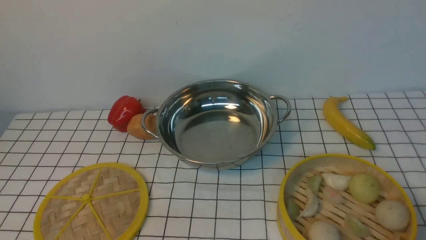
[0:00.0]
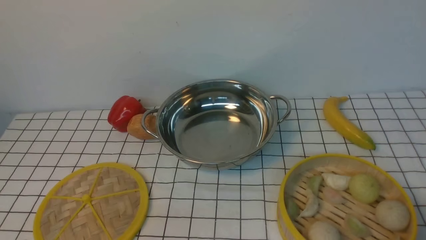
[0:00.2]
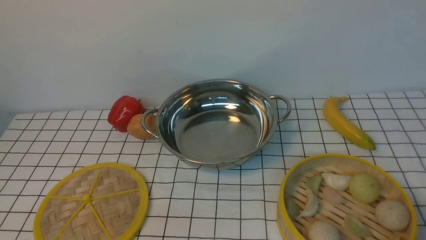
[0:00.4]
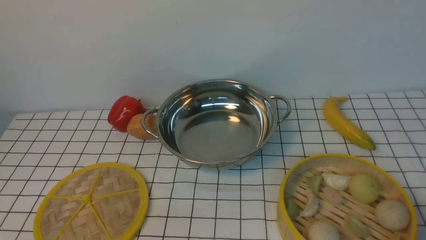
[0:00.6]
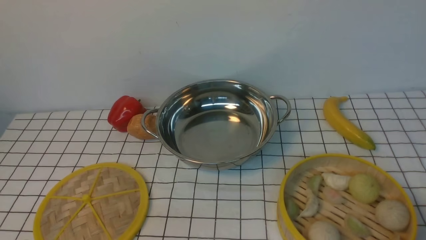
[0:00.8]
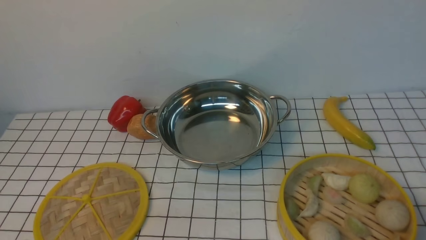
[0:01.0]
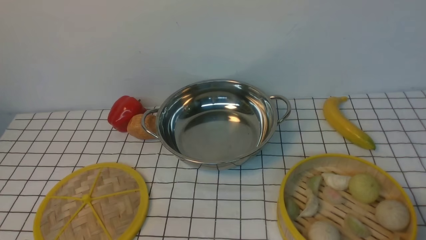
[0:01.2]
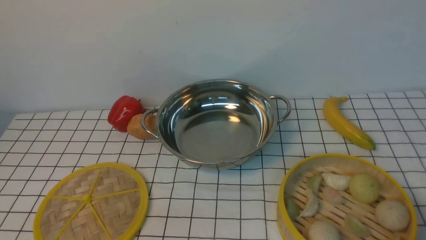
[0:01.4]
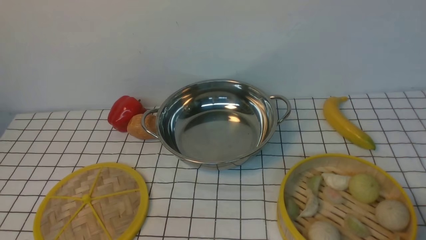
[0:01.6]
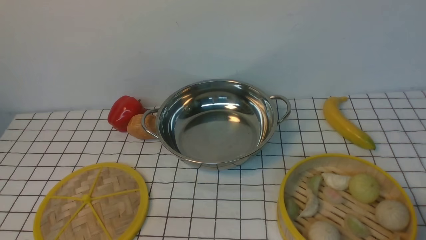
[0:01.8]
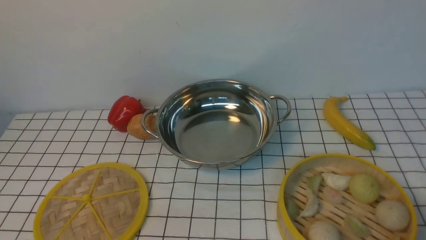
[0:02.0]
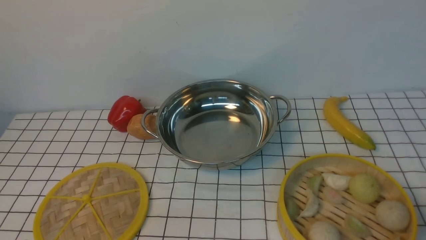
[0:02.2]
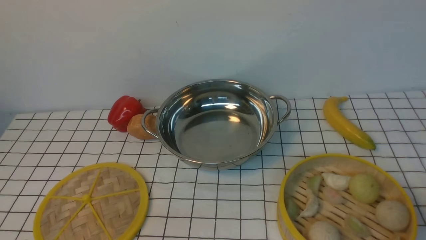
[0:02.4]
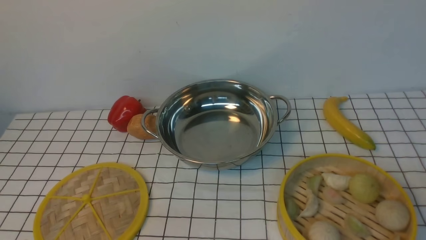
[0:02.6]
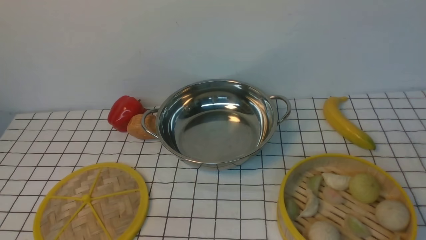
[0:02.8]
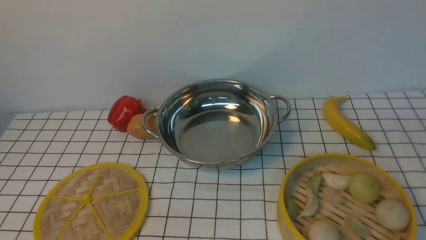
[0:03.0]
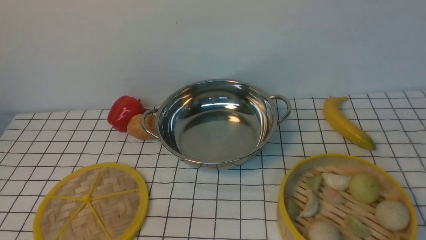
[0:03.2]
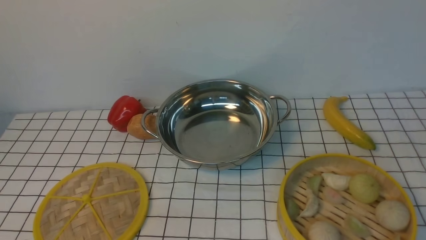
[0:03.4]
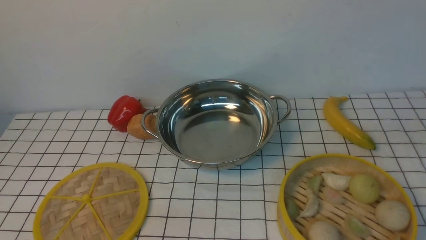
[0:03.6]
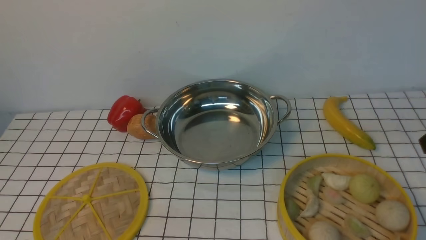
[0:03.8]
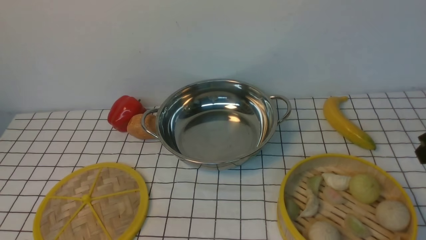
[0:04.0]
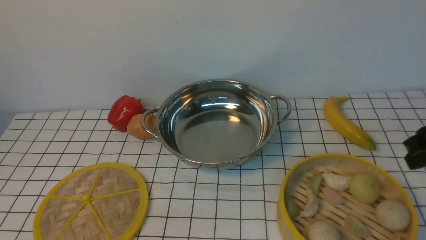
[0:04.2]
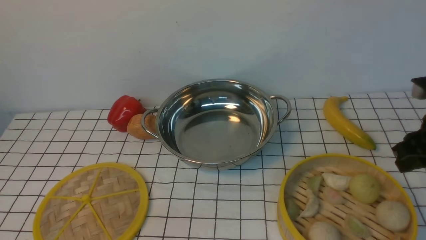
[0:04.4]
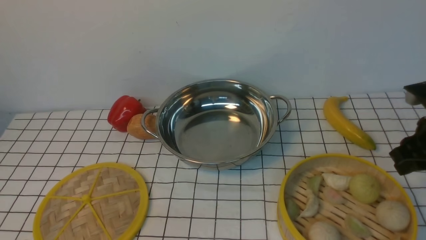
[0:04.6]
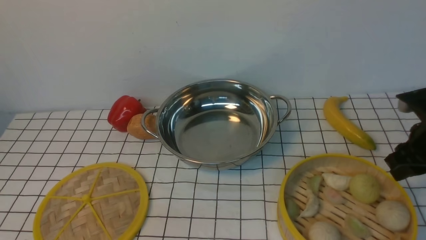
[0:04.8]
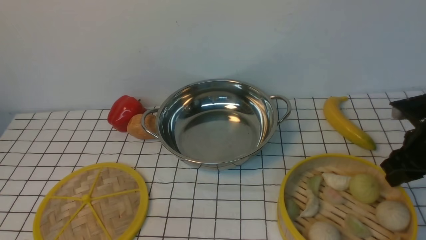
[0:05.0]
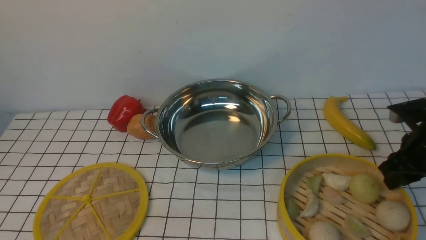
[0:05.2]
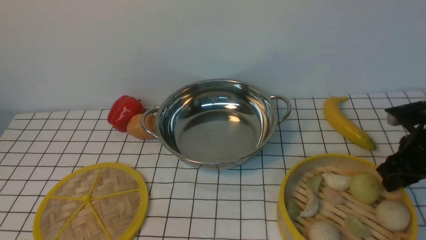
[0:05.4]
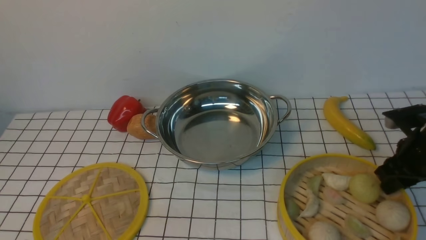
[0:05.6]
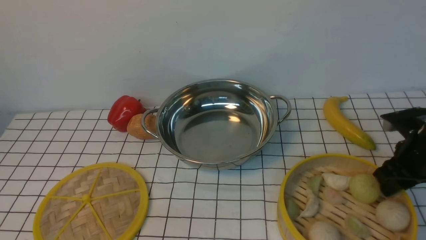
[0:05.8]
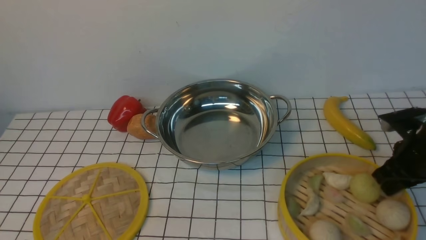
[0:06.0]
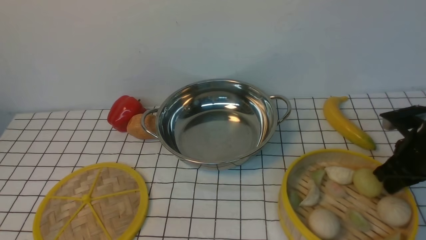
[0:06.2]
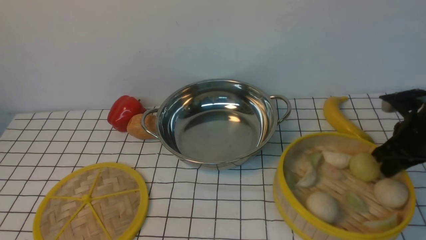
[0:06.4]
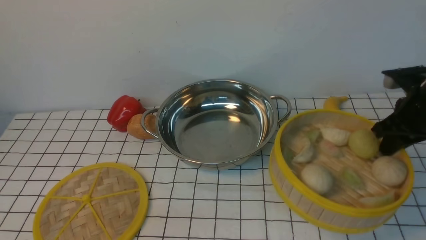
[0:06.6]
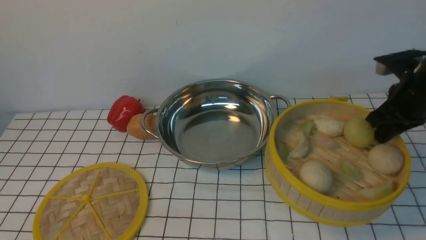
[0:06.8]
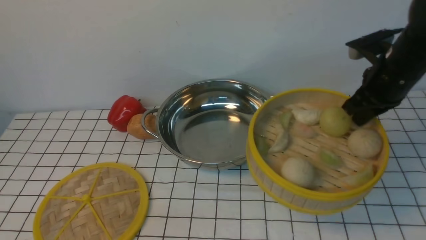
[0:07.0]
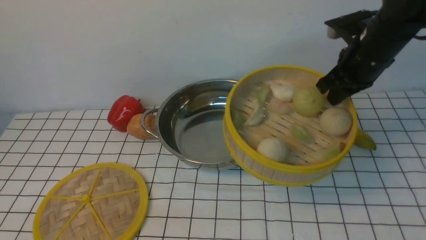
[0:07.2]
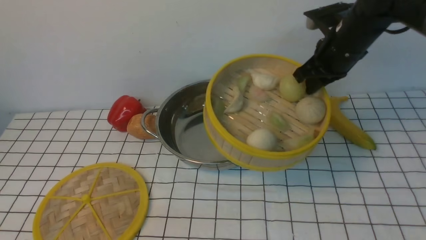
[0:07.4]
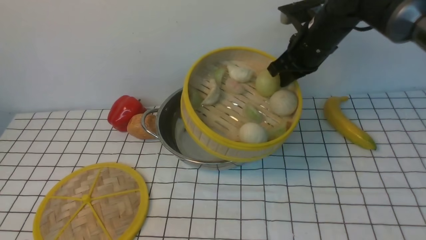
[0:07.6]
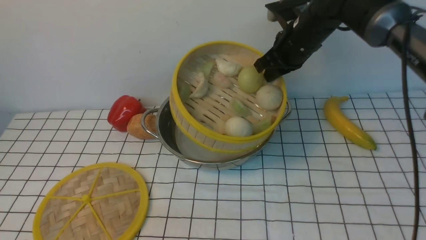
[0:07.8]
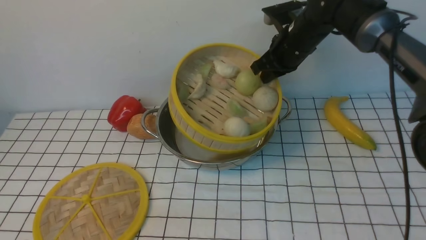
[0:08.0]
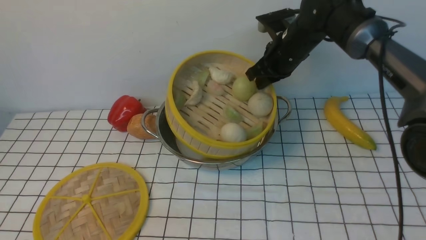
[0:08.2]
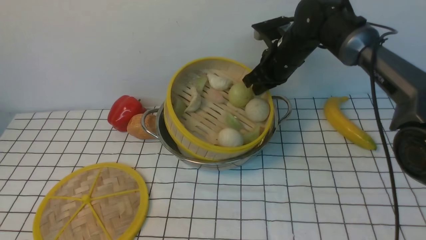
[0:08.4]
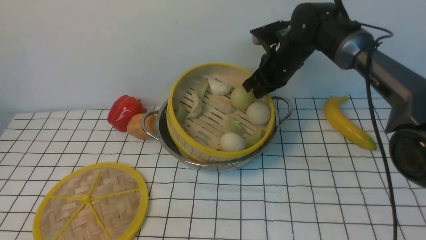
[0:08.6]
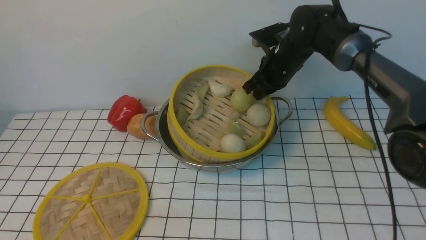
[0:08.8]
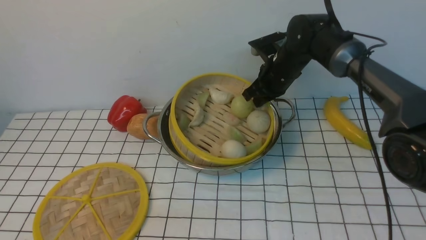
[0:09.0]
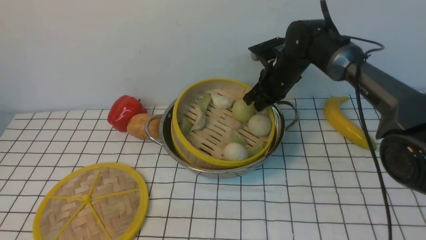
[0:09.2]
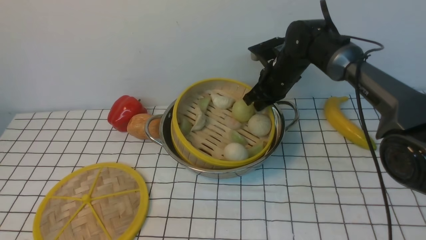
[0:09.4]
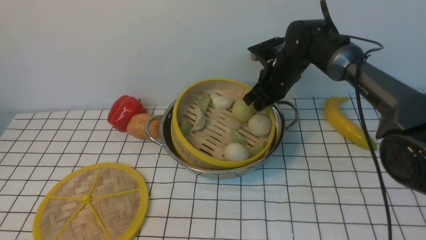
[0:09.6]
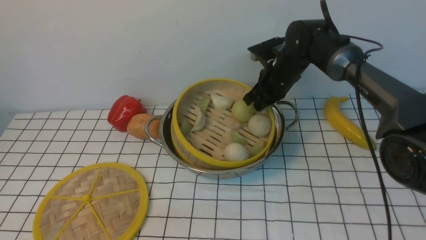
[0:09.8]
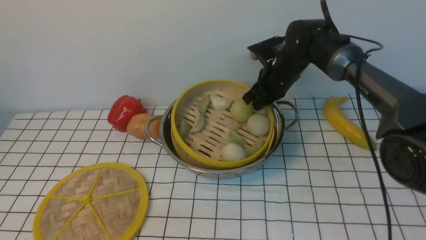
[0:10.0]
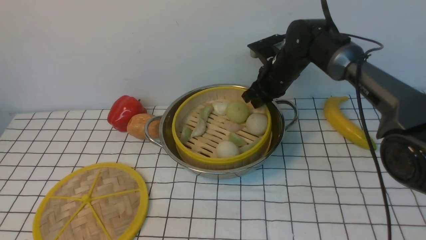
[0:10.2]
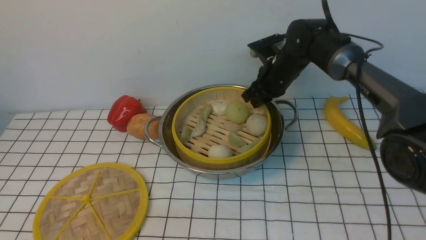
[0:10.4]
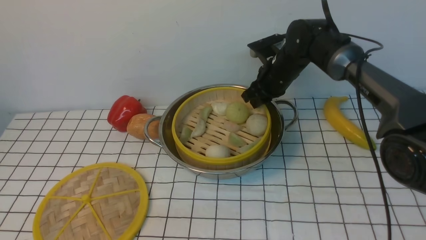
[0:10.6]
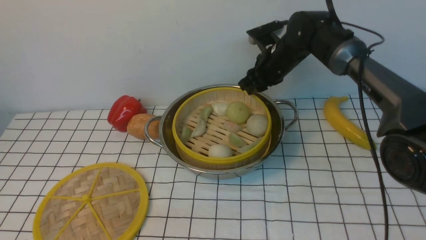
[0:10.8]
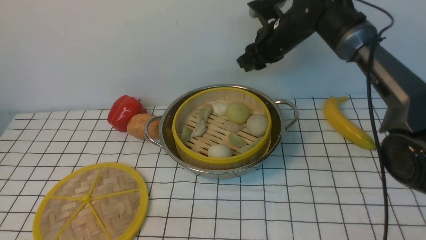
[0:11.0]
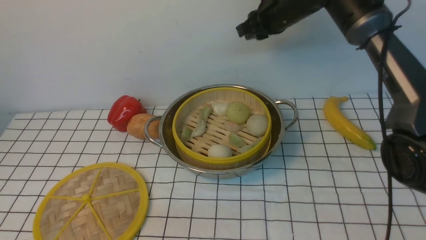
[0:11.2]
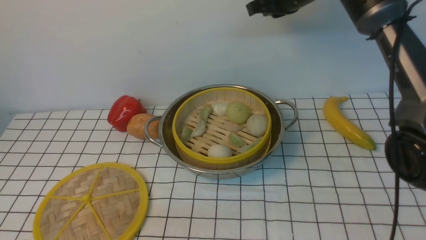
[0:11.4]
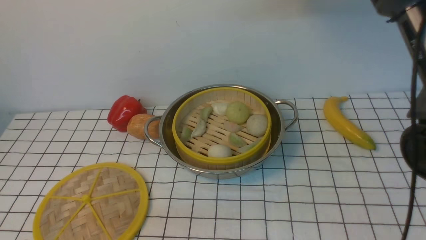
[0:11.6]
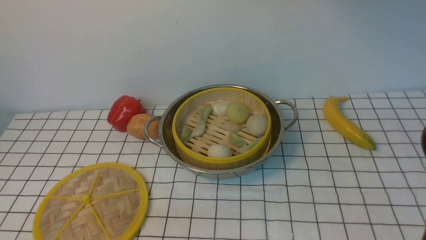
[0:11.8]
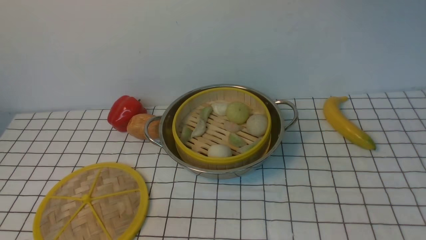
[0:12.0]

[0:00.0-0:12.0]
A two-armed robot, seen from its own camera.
Task of the whole recording: place the steamer in the pot on the white tablecloth, and put the lid on the steamer.
Step, 0:00.0 to 0:06.2: use the right arm to lift the steamer closest to it.
Step, 0:06.4 to 0:10.6: use the right arm to put the steamer into the iron steamer pot in the middle.
0:03.0 to 0:04.4: The right gripper goes about 20 cm forward.
0:04.4 to 0:06.0: The right gripper shifts about 10 cm downward, and closes.
0:06.0 to 0:07.6: The right gripper goes about 20 cm to the left, forward and upward, and closes up.
0:07.6 to 0:09.0: The right gripper moves downward and to the left, about 10 cm.
0:09.0 to 0:10.4: The right gripper opens up.
0:10.4 to 0:12.0: The right gripper goes some 25 cm upward, and closes its fingers.

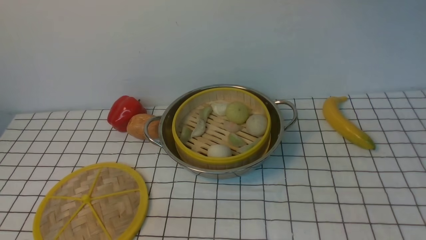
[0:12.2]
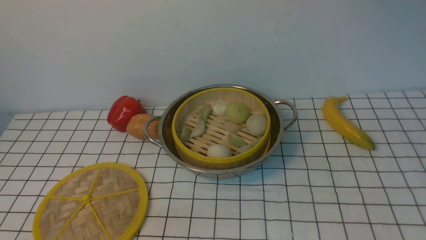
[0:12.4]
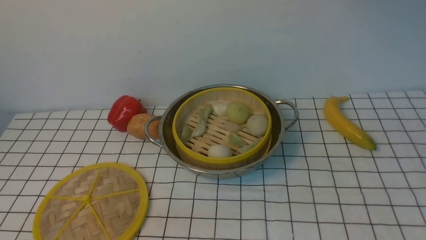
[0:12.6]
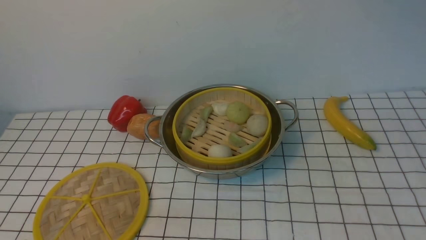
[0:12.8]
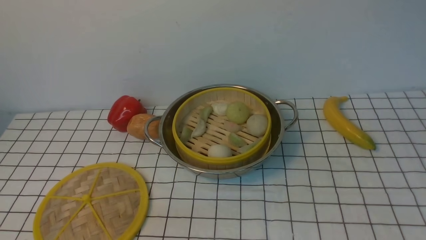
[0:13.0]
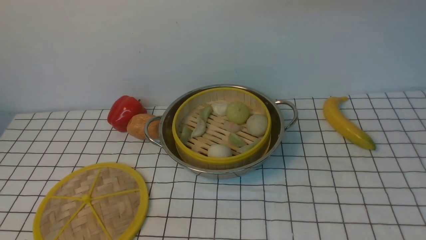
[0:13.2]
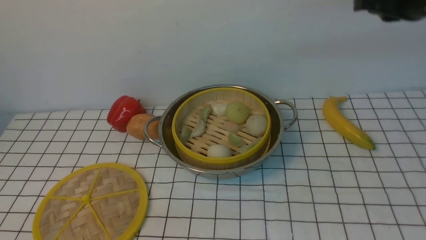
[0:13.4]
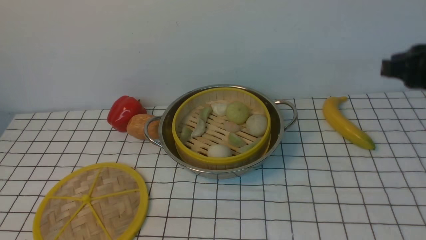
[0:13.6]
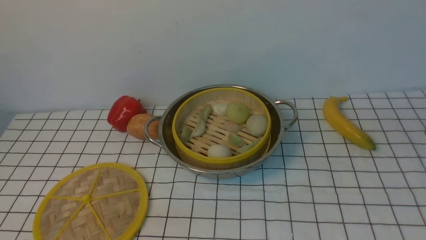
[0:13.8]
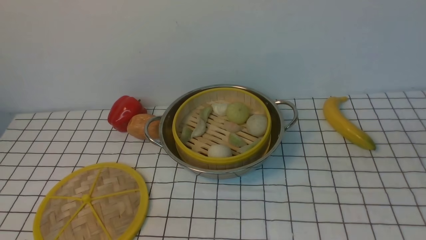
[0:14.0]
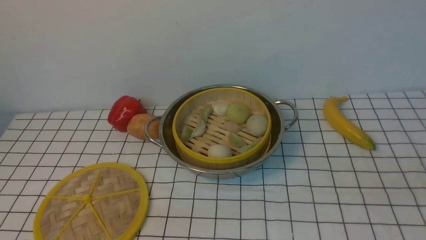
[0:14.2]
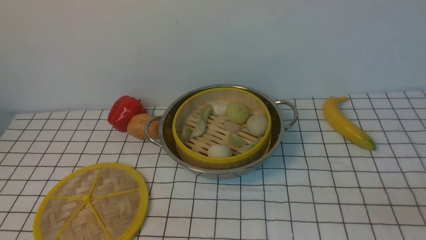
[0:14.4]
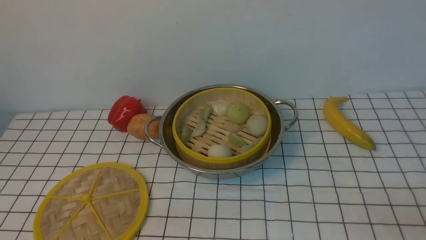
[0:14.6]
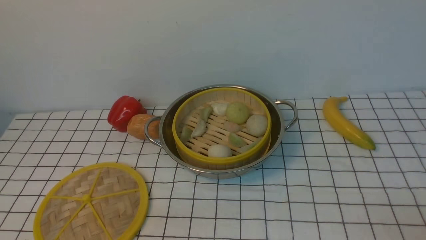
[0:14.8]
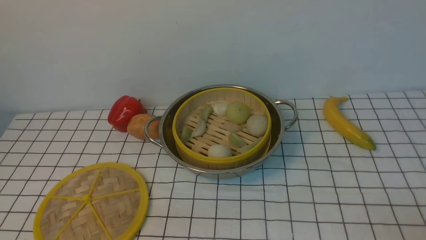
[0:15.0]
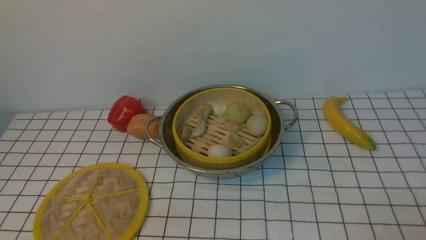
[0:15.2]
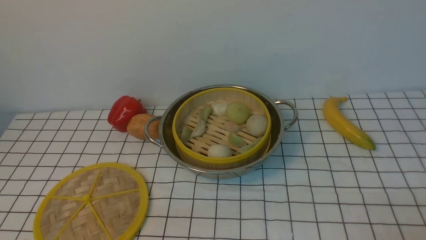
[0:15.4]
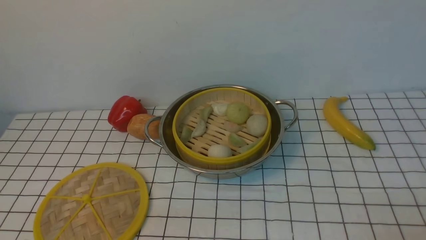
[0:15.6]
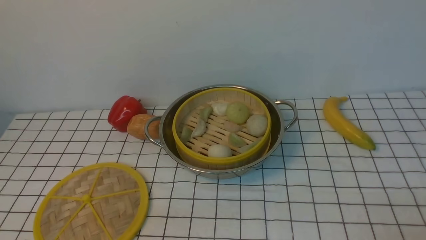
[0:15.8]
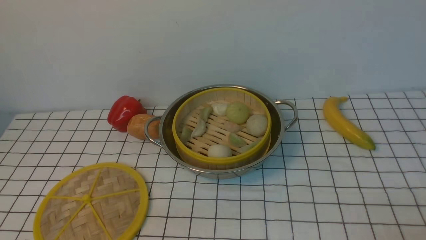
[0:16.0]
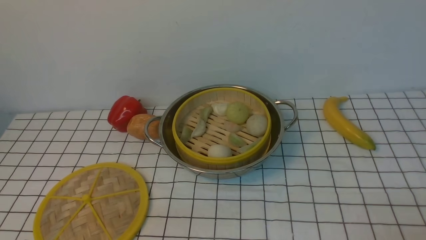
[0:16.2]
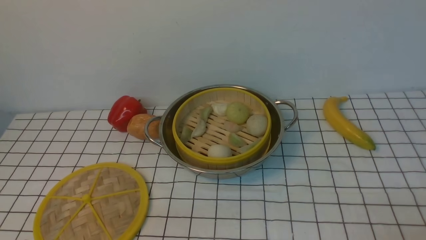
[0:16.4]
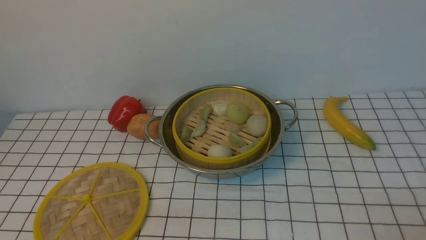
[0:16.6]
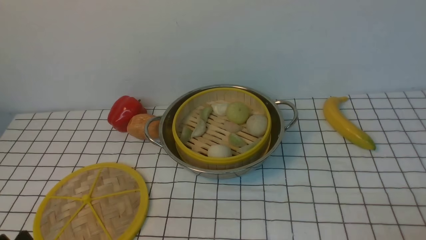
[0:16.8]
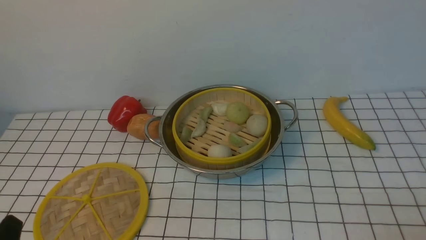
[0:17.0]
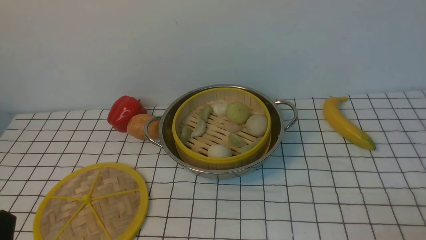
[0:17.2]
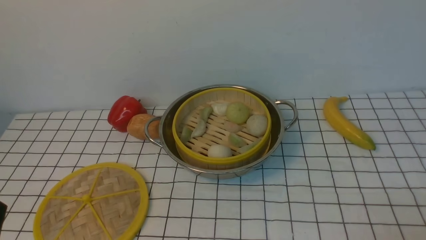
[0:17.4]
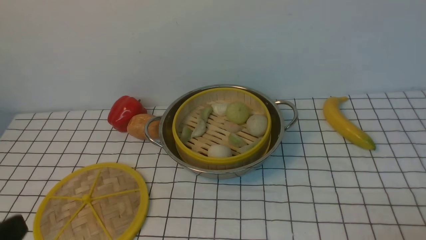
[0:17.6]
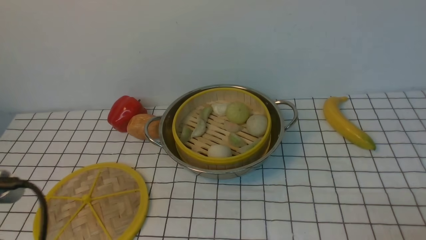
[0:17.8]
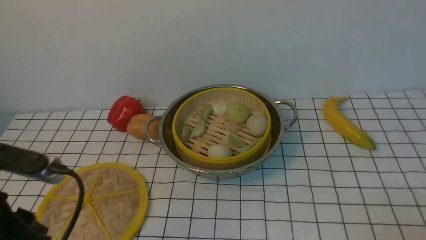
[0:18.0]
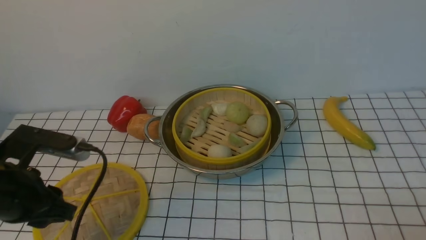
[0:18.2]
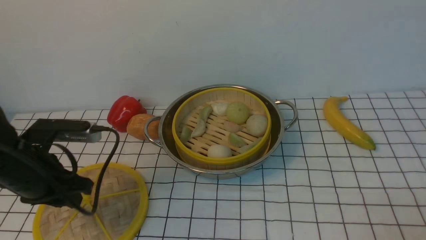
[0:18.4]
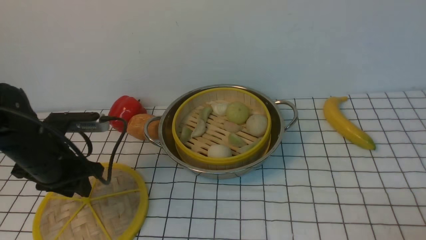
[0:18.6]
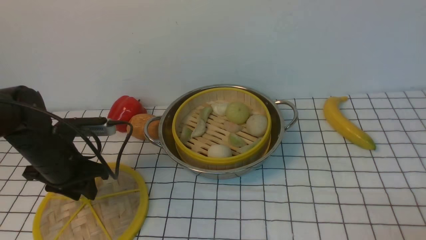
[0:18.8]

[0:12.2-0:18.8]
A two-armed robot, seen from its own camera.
Task of the whole recording: place the steamer in the pot on the white tablecloth, and put the lid on the steamer.
0:17.2 to 0:18.8: The left gripper heads forward, covering approximately 25 cm.
